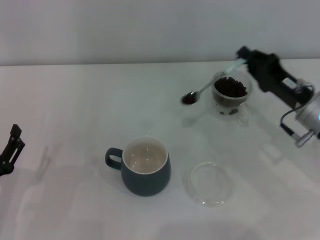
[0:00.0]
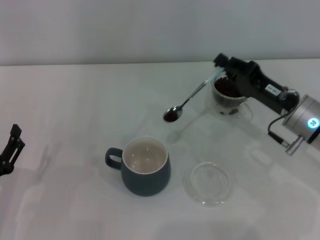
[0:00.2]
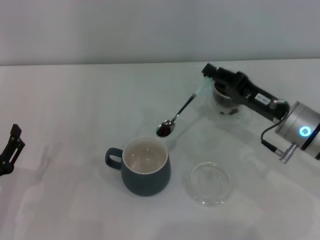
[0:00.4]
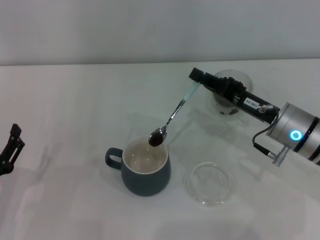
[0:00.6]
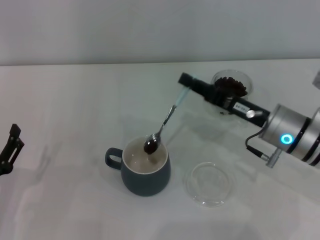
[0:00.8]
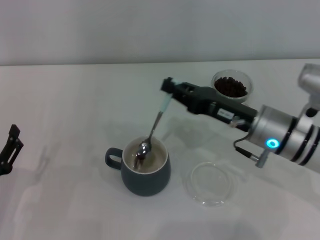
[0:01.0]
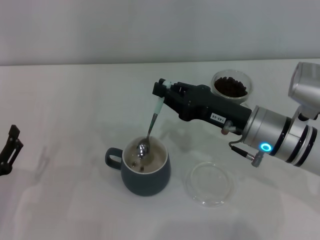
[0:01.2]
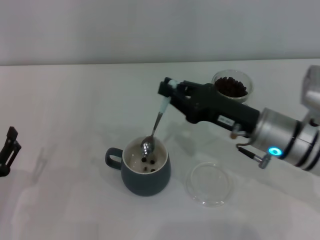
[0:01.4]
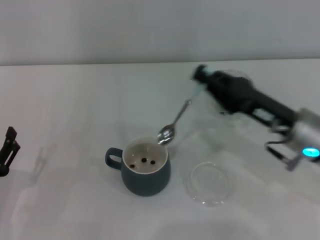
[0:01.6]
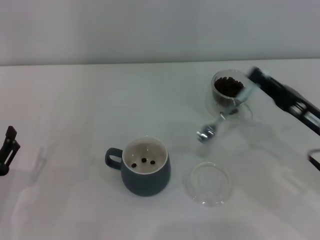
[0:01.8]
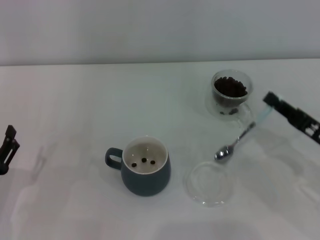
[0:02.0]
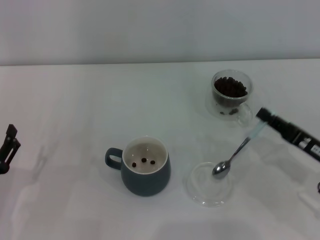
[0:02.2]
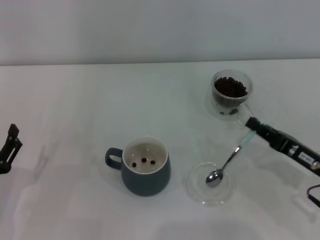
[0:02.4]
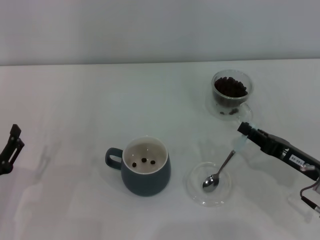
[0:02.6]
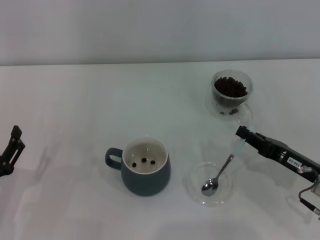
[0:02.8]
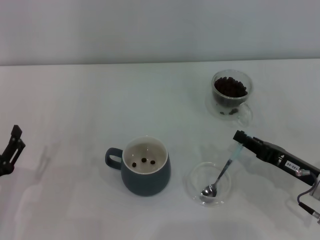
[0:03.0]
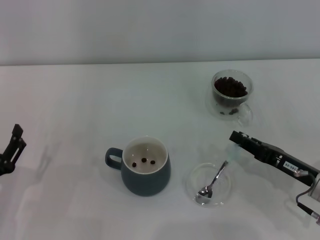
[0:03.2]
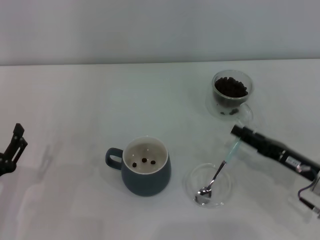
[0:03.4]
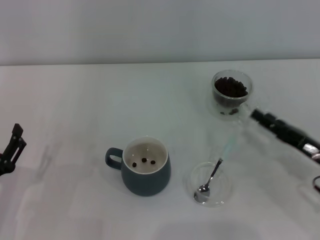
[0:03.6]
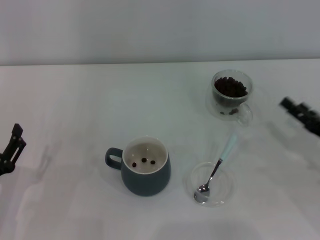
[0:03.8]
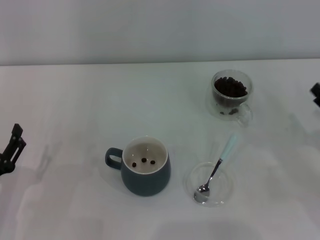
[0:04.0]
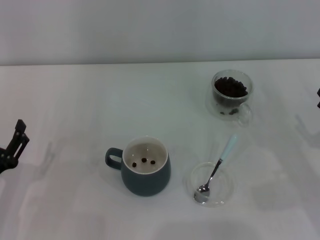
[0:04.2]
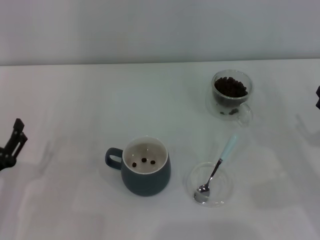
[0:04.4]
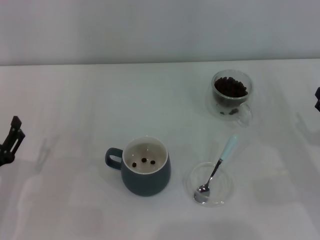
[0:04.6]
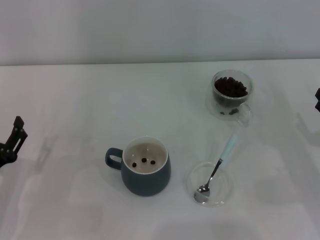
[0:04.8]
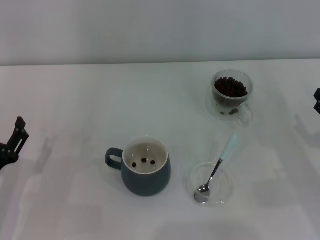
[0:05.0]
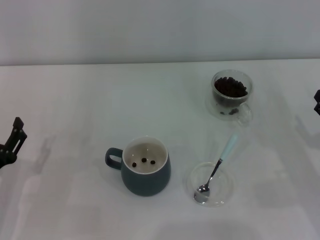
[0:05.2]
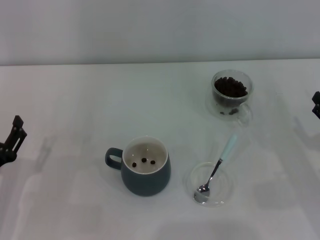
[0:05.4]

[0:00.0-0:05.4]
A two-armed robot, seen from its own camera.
Task of the whole recording: Use a blue spoon to take out the coffee beans from the glass and pour them into the gray cup.
Step, 0:01.6 to 0:03.4: Place the spoon back in its original place with the right gripper.
0:00.0 to 0:01.4: The right gripper is displaced to the left by some 10 cm.
0:01.4 to 0:02.8: The right gripper is displaced to the right, downward and backward by about 15 cm.
0:02.8 to 0:04.0: The right gripper goes about 5 cm to the right, and opens up.
